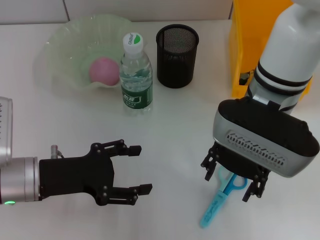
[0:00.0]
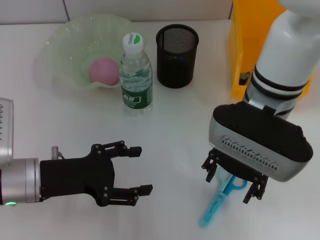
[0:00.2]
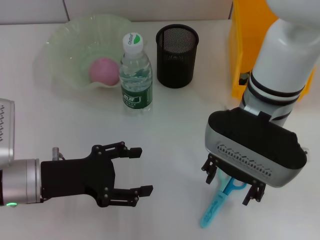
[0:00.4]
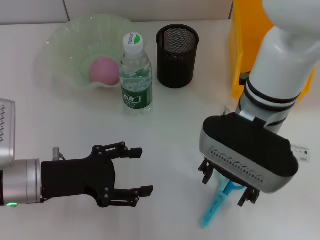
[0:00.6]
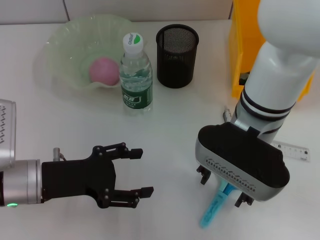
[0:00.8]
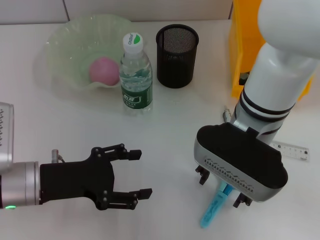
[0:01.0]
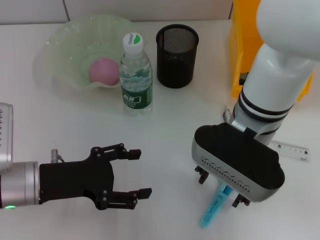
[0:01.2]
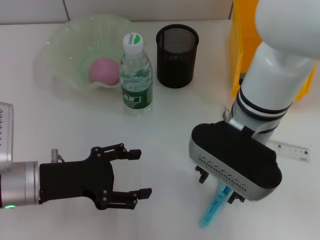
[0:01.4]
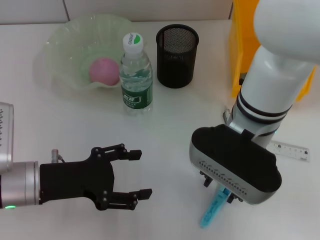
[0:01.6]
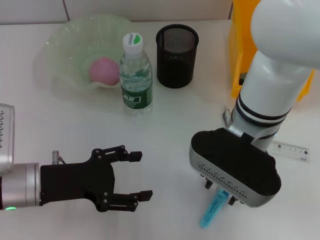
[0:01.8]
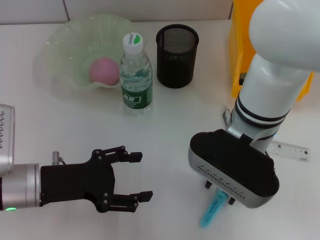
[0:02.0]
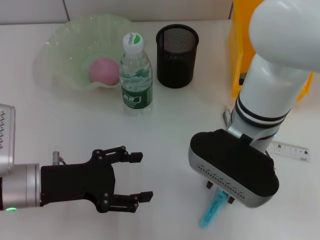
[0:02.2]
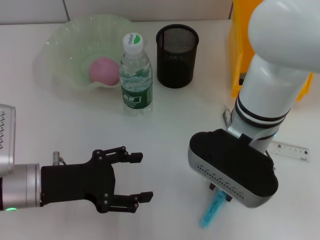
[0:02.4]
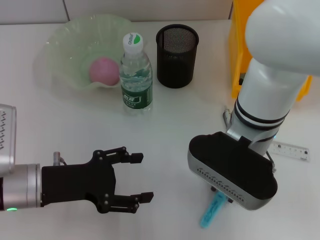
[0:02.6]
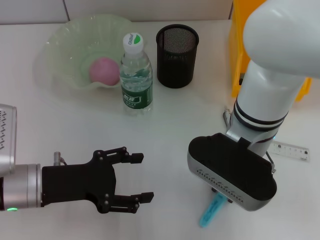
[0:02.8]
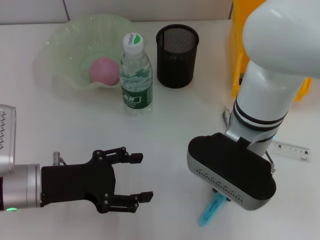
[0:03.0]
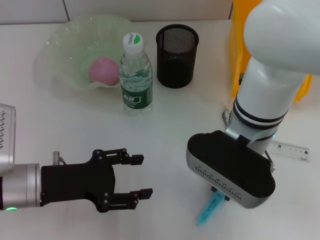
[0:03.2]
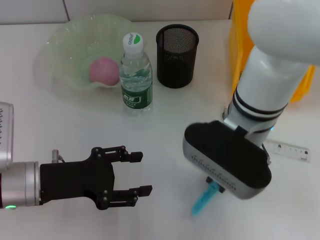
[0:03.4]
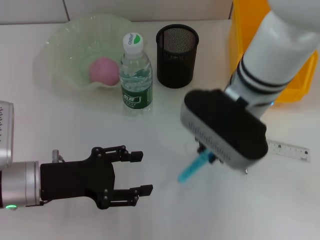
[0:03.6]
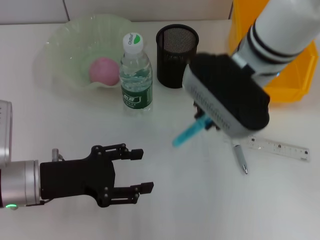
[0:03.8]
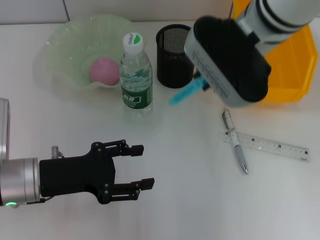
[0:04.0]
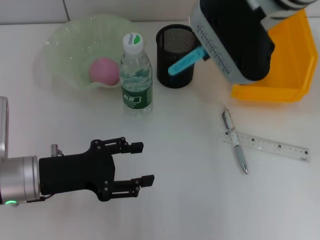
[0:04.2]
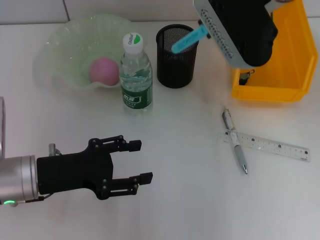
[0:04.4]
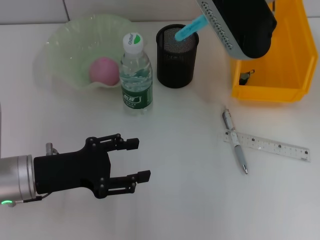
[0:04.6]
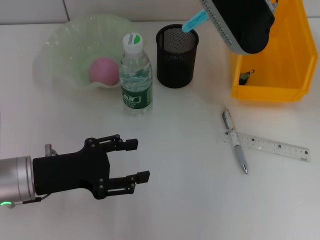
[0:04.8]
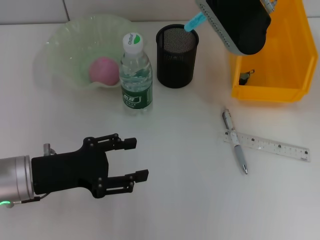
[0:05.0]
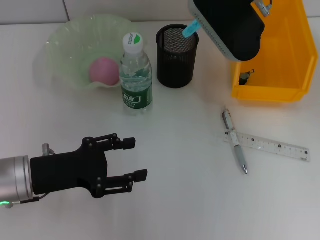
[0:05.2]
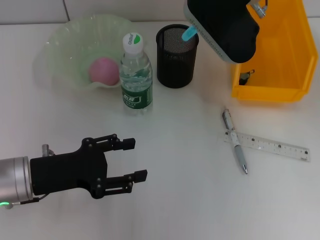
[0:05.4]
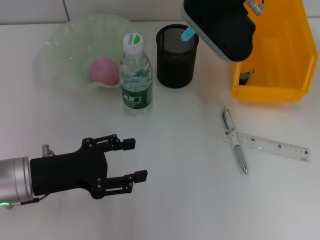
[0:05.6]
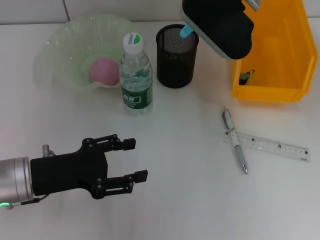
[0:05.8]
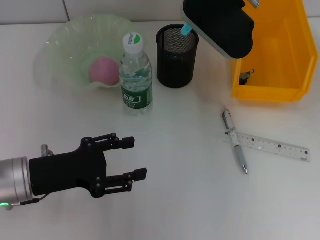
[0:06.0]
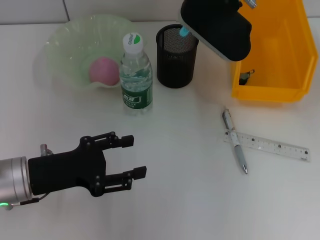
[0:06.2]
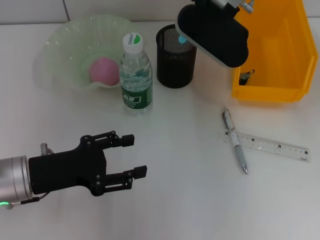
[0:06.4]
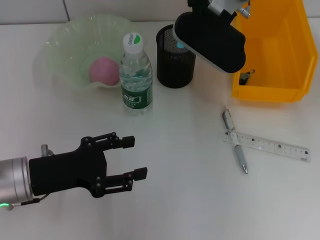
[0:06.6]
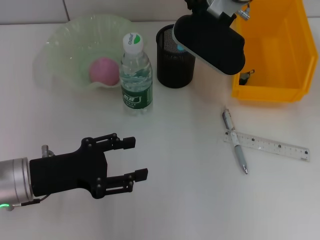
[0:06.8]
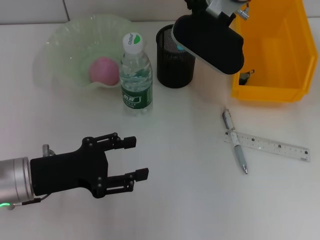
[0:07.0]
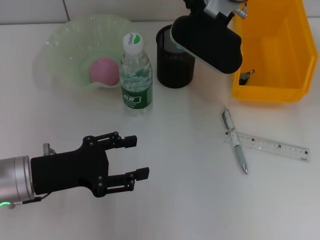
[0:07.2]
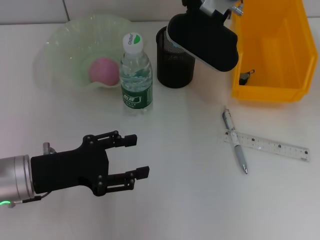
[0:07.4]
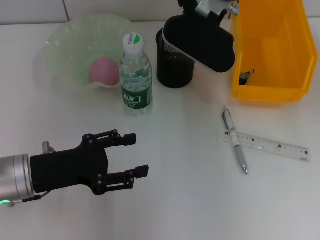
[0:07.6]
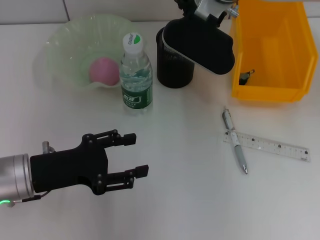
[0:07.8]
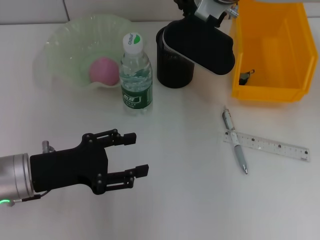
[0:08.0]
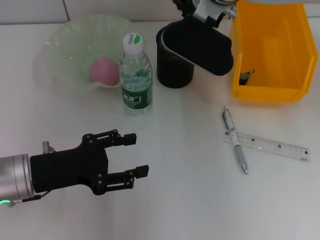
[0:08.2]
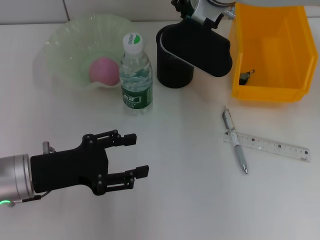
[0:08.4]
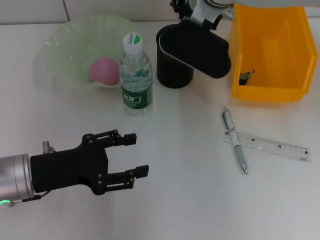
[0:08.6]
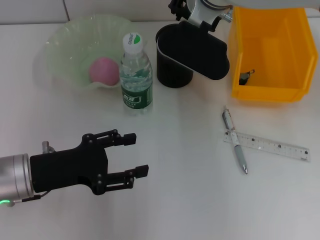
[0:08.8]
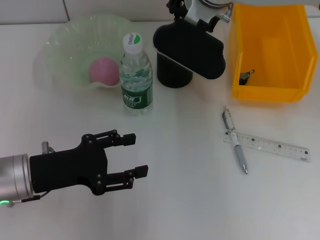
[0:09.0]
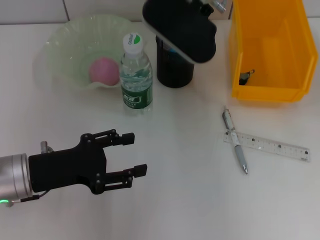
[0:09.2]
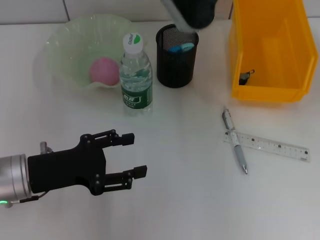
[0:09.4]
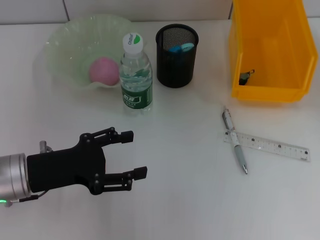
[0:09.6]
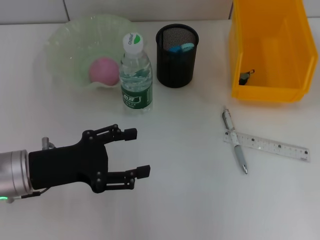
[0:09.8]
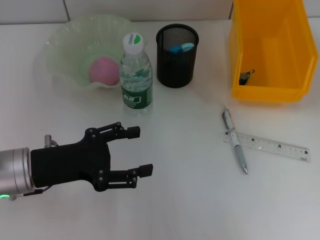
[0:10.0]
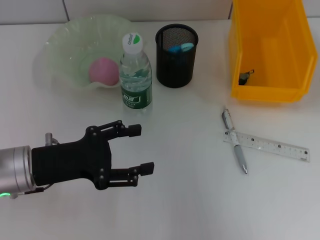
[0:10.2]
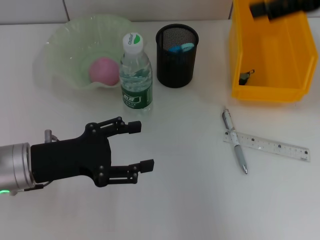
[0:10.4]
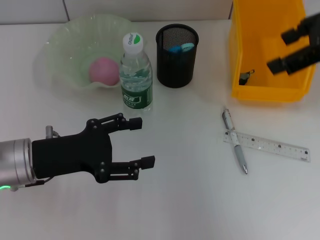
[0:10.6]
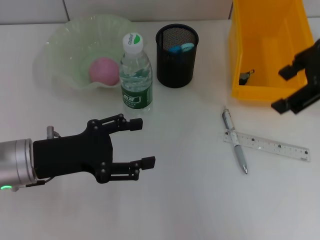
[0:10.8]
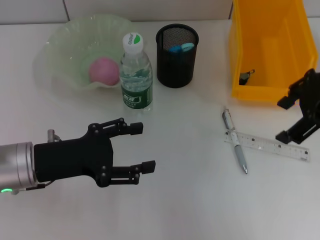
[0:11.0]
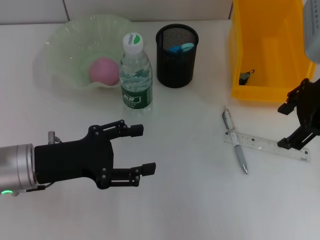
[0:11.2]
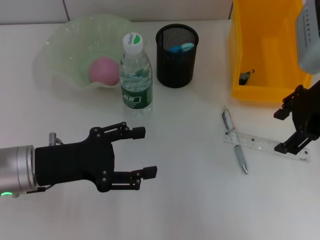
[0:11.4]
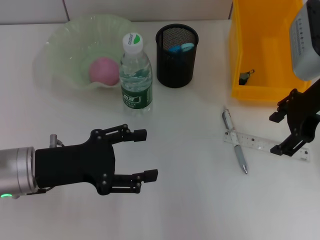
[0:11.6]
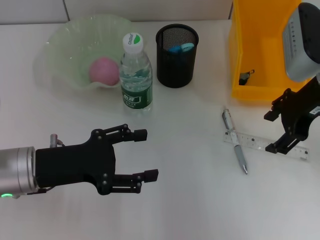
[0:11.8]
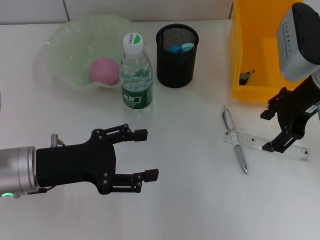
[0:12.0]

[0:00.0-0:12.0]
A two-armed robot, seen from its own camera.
Step, 0:00.0 to 0:03.0: Grab the blue scissors with the right hand.
Step, 0:03.2 to 0:09.0: Place the blue scissors into the pen holder with the right hand.
0:00.0 to 0:01.6: The grippers make only small movements.
0:01.6 to 0:03.0: The right gripper closes up.
0:03.0 to 0:04.4: The right gripper shifts roughly 15 cm upward and forward.
0:04.4 to 0:06.0: The right gripper shifts by roughly 5 cm.
0:06.0 to 0:09.0: The grippers move only a little.
0:09.0 to 0:10.4: The right gripper moves to the right and upward, about 25 cm, and opens.
0:10.4 to 0:12.0: The right gripper moves downward, about 15 cm.

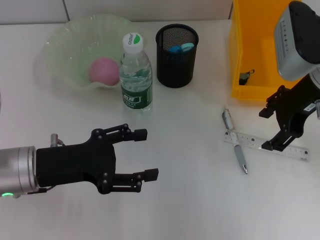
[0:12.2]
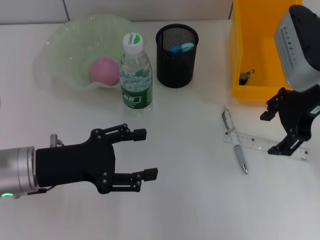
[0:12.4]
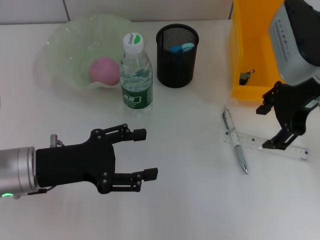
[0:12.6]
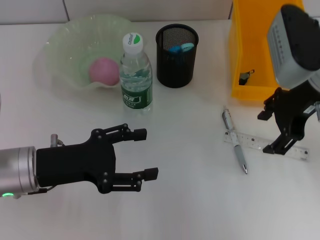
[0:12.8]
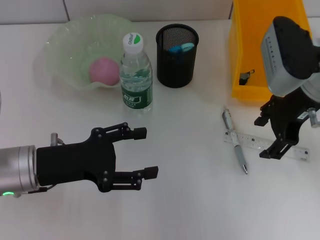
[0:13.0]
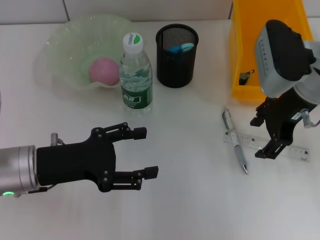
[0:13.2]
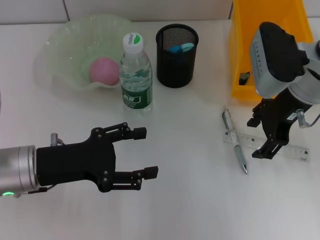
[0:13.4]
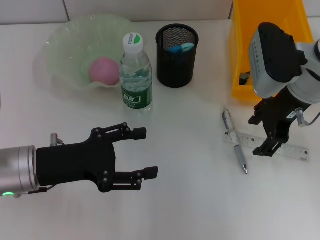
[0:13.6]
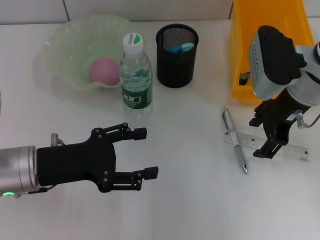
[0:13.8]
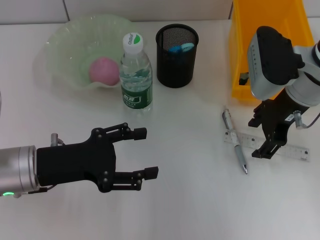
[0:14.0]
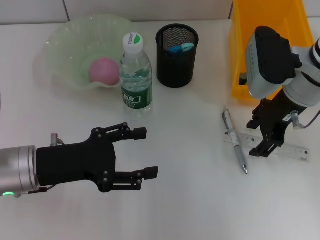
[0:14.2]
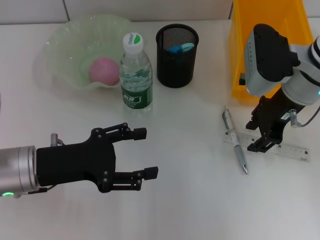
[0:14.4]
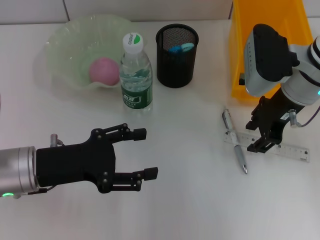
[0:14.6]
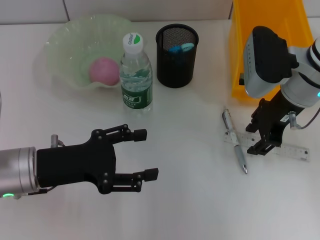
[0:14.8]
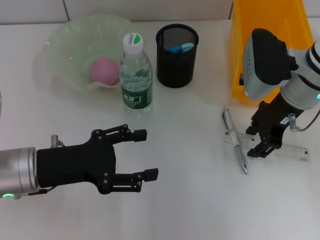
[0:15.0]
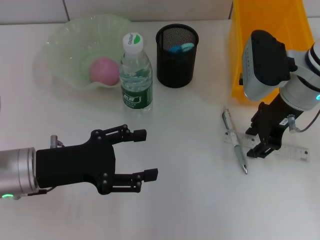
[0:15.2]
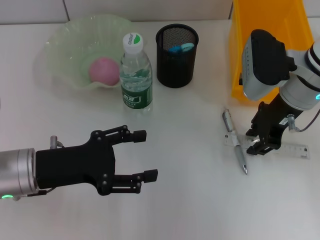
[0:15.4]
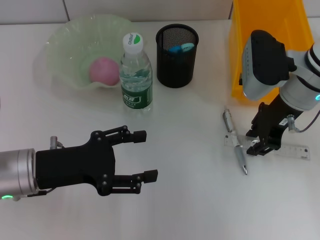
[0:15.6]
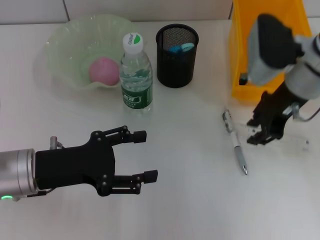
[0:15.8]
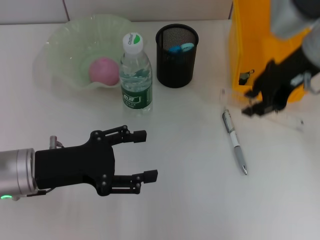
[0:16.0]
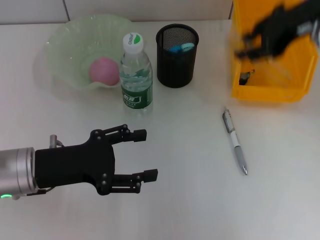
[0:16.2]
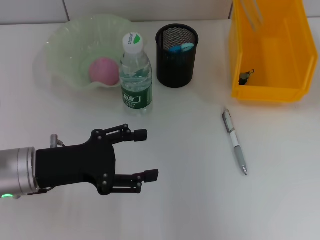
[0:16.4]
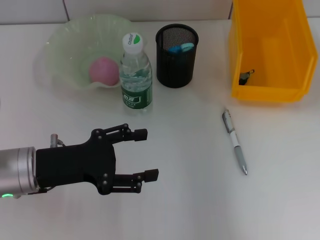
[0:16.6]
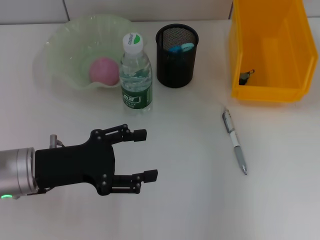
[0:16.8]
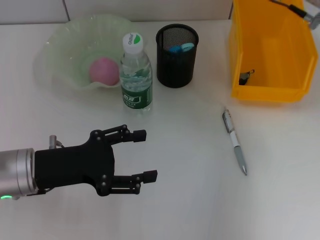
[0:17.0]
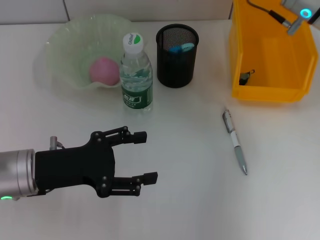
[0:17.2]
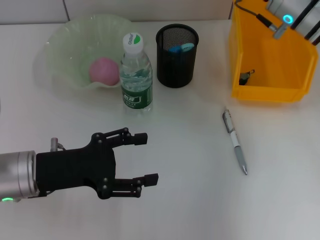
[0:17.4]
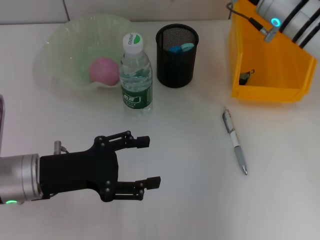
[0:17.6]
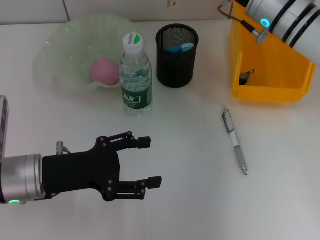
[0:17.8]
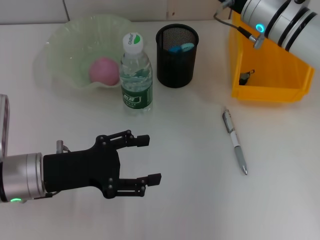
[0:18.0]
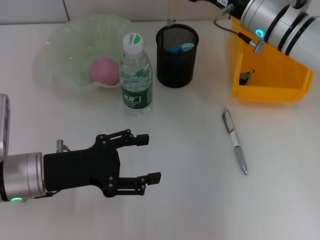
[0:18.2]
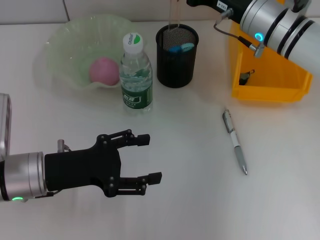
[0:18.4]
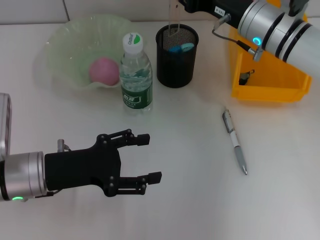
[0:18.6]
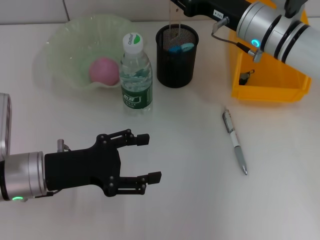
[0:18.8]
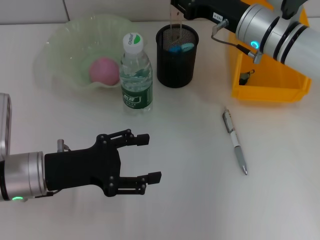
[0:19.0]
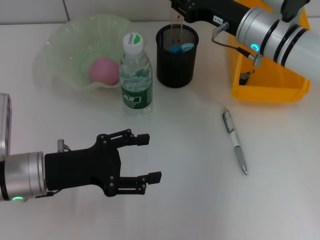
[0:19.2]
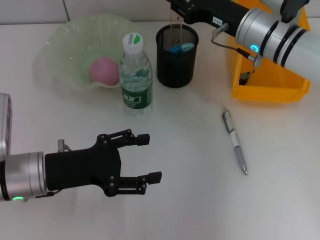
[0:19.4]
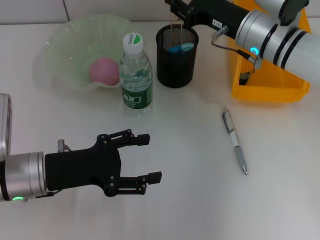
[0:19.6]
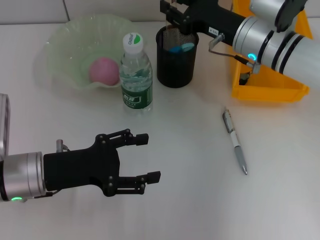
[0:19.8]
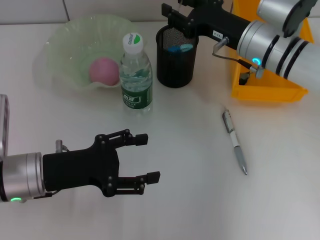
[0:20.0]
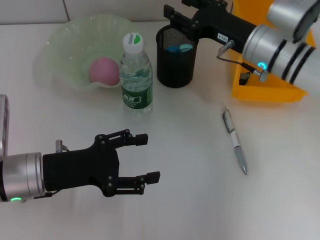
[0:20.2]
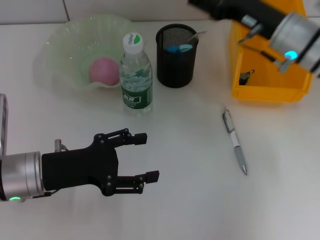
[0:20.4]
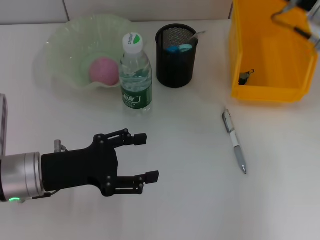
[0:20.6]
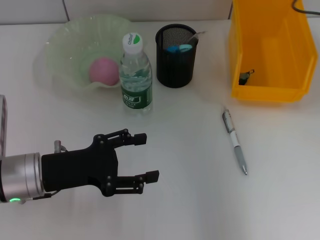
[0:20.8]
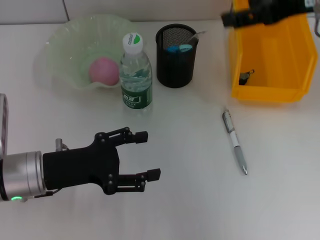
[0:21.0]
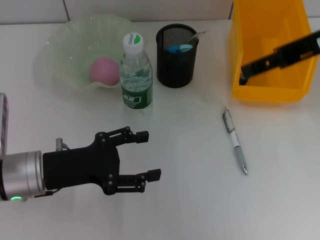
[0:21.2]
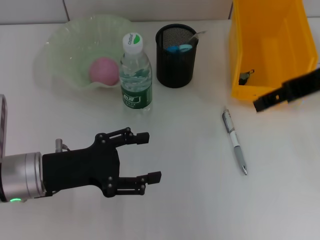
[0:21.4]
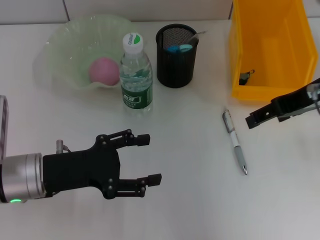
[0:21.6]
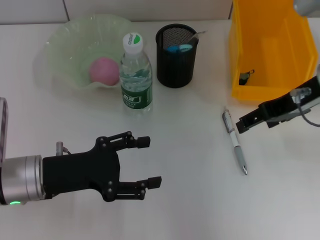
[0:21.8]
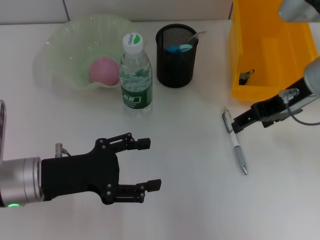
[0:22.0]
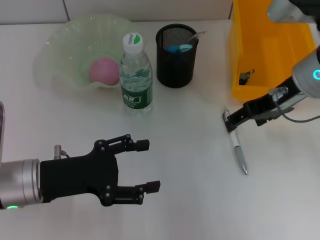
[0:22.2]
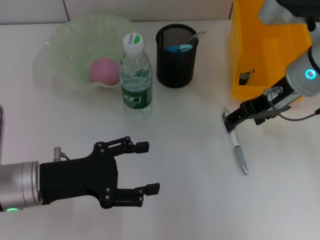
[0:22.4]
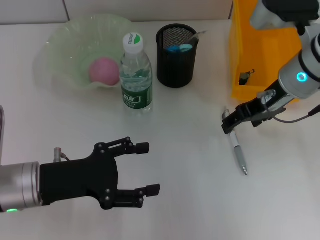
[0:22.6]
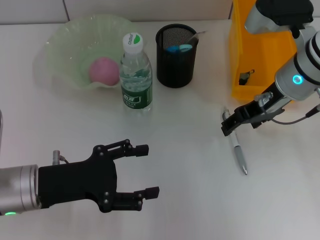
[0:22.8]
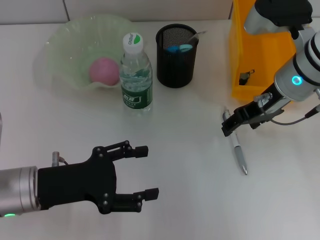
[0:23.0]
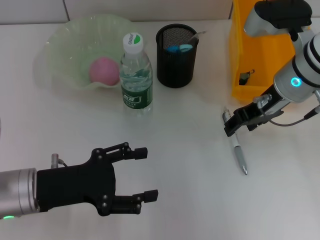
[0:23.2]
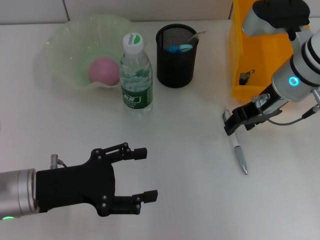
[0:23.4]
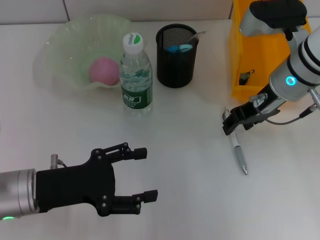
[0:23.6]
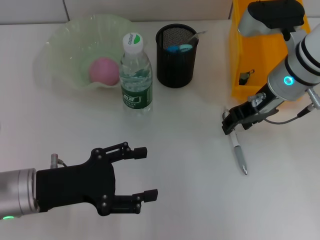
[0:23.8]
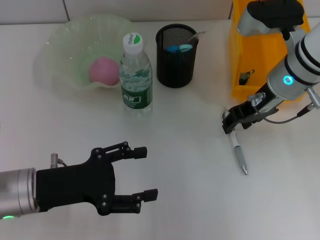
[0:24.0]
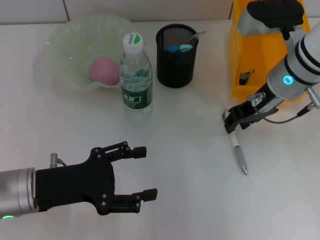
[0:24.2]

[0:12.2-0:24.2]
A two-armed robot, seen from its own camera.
Step, 0:12.2 to 0:15.2: Grab the ruler with the right hand.
Step, 0:15.4 to 0:20.0: Place the ruler into the pen holder with the right hand.
0:12.2 to 0:13.8: The grippers move only a little.
0:13.8 to 0:15.2: Both grippers stay about where they are.
0:15.2 to 0:16.6: The right gripper travels upward by some 15 cm.
0:16.6 to 0:18.2: The right gripper travels downward and to the left by some 15 cm.
0:18.2 to 0:19.8: The grippers move only a little.
0:19.8 to 0:21.2: The right gripper goes roughly 20 cm upward and backward, and opens up.
0:21.2 to 0:22.6: The right gripper shifts about 15 cm downward and forward.
0:22.6 to 0:24.2: The right gripper closes up.
